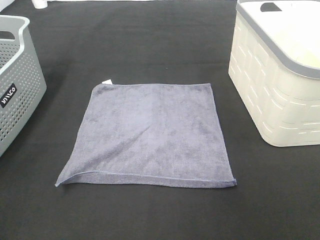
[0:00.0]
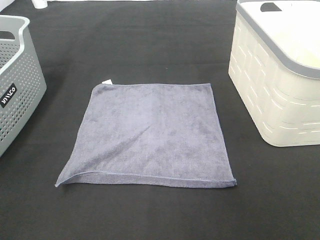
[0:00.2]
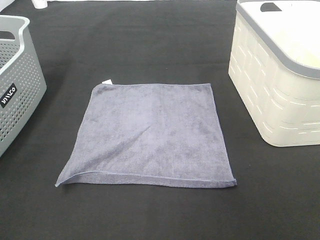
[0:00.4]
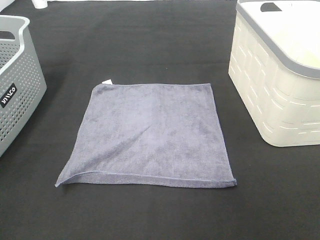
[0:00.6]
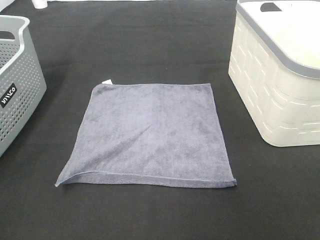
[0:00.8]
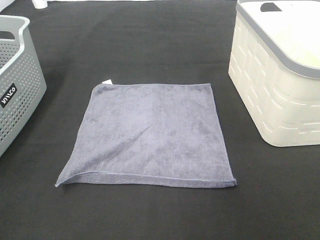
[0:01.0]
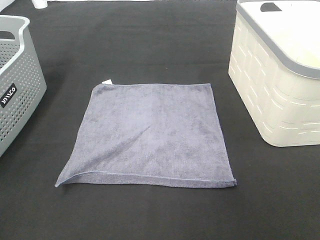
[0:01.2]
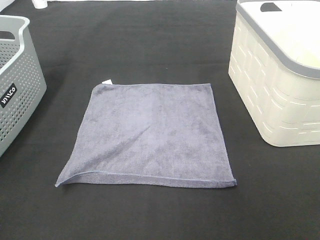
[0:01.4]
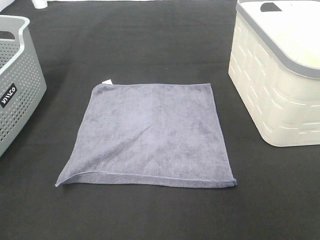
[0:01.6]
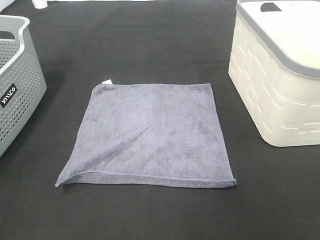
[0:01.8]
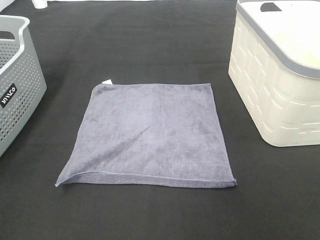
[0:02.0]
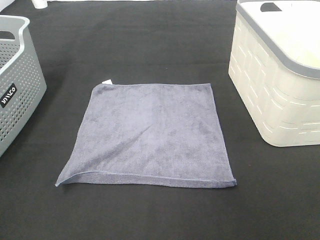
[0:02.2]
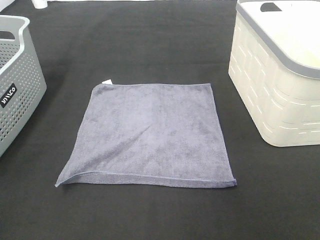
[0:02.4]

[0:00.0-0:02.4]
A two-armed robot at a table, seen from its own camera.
Task of the whole recording: Remove the towel and place it.
0:01.2 to 0:02.4: Neither gripper changes place.

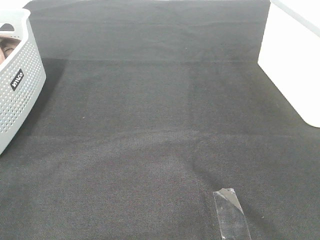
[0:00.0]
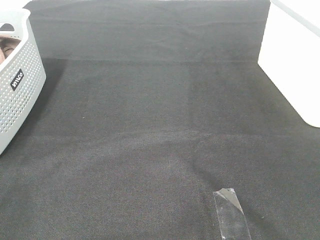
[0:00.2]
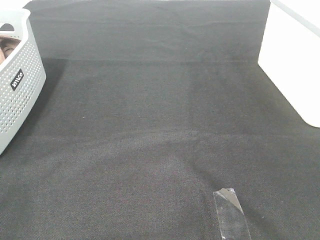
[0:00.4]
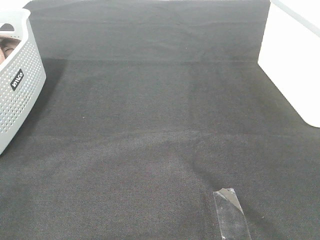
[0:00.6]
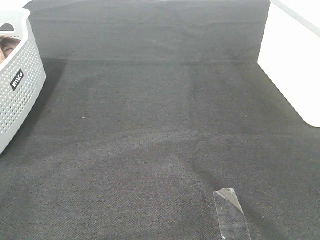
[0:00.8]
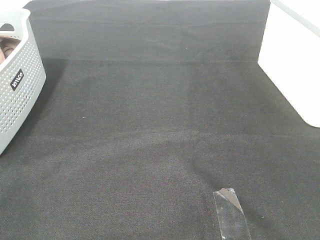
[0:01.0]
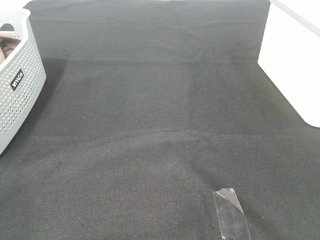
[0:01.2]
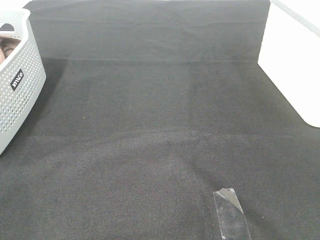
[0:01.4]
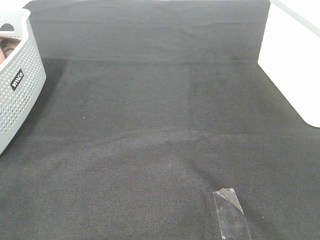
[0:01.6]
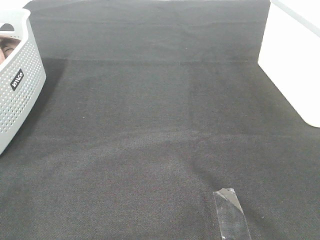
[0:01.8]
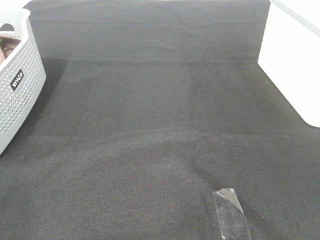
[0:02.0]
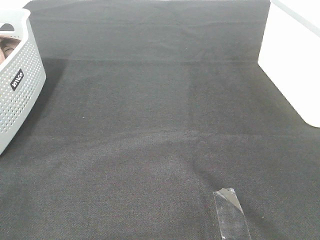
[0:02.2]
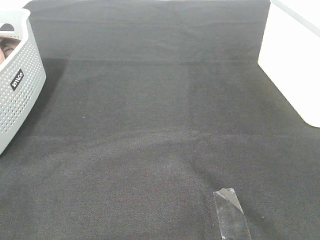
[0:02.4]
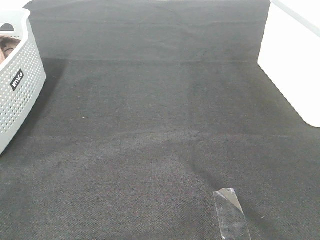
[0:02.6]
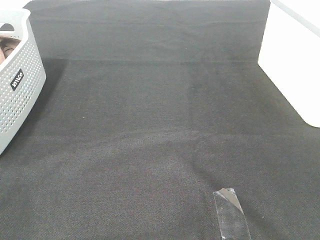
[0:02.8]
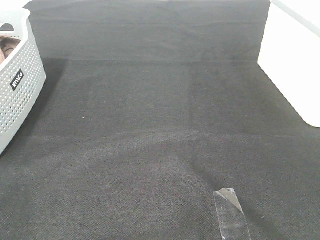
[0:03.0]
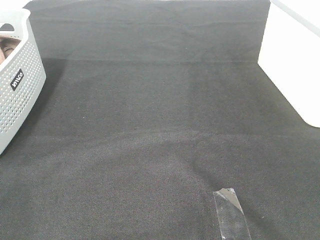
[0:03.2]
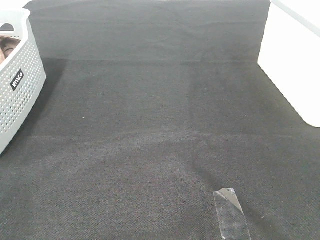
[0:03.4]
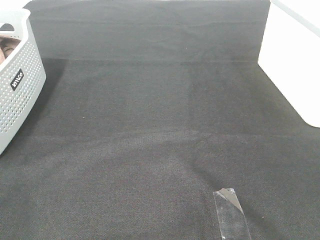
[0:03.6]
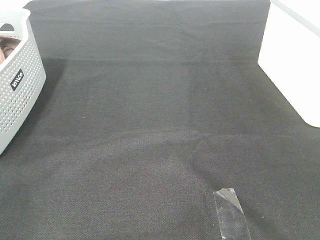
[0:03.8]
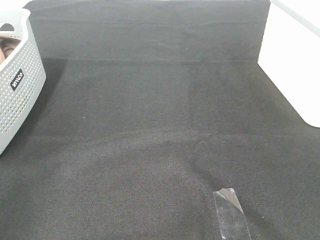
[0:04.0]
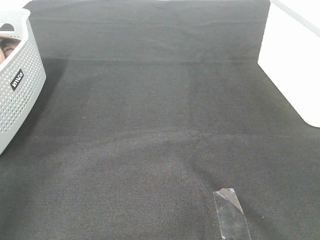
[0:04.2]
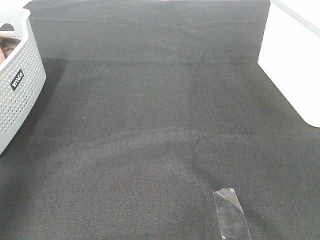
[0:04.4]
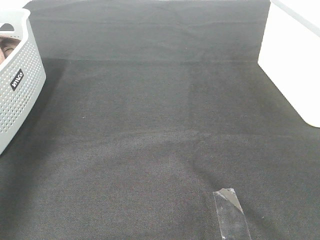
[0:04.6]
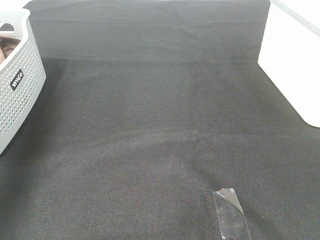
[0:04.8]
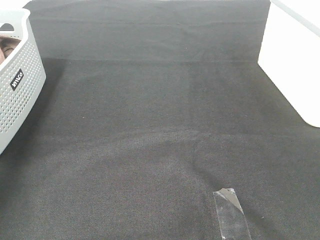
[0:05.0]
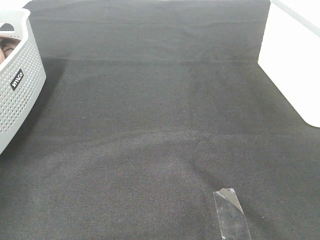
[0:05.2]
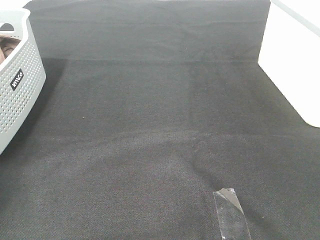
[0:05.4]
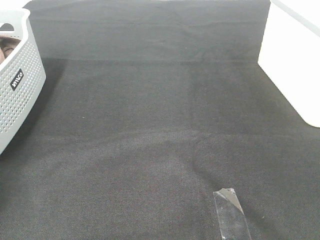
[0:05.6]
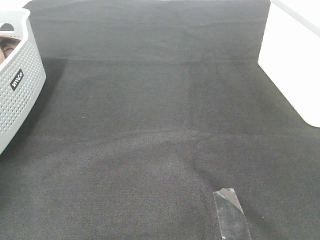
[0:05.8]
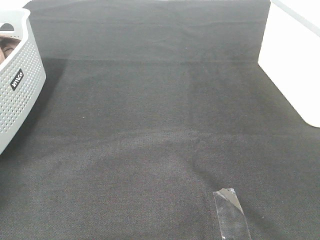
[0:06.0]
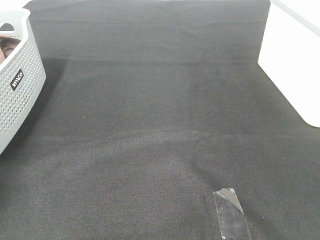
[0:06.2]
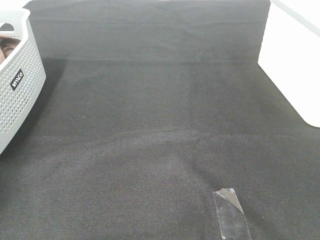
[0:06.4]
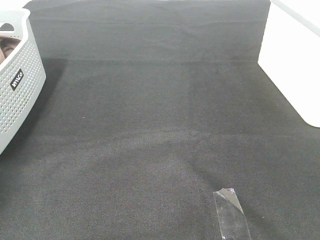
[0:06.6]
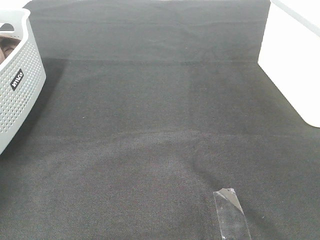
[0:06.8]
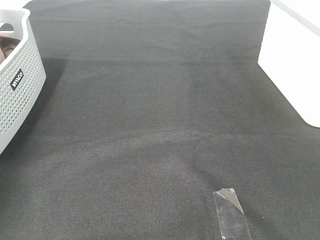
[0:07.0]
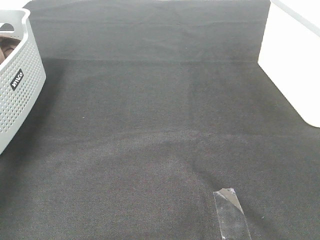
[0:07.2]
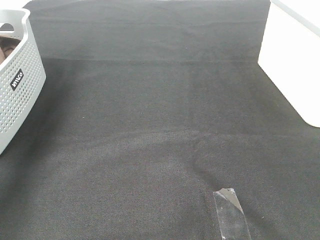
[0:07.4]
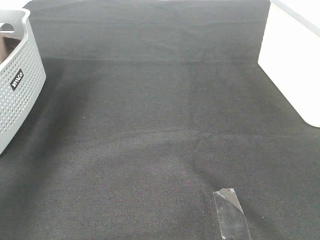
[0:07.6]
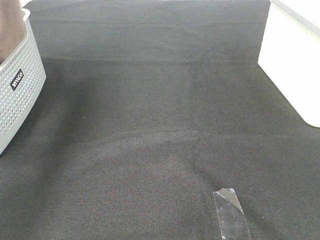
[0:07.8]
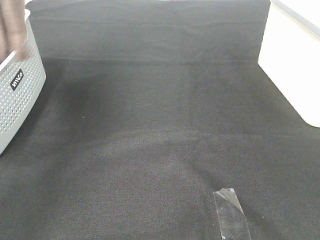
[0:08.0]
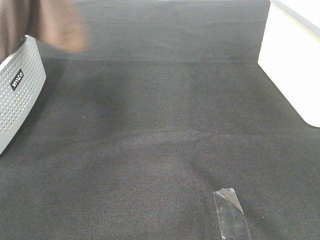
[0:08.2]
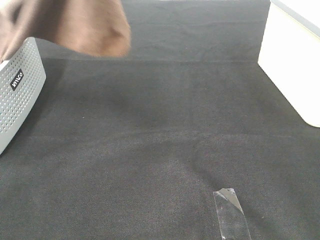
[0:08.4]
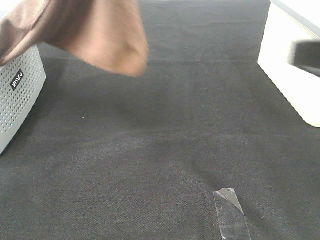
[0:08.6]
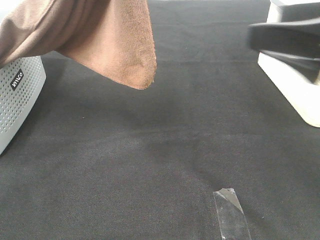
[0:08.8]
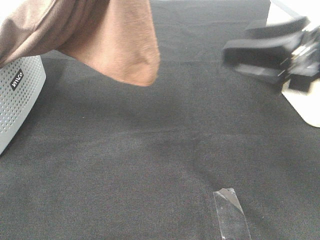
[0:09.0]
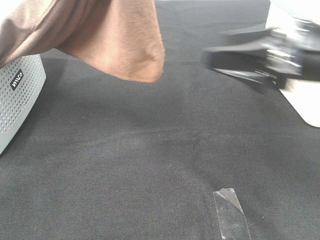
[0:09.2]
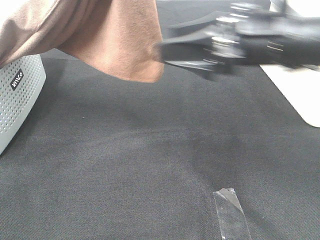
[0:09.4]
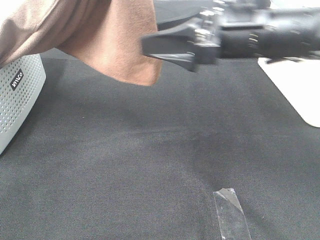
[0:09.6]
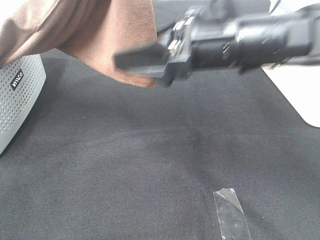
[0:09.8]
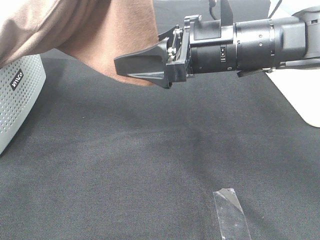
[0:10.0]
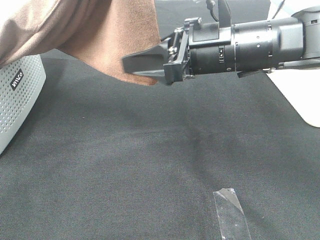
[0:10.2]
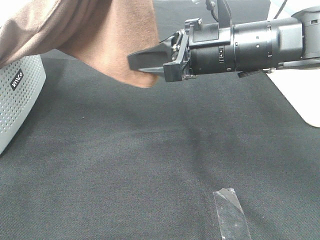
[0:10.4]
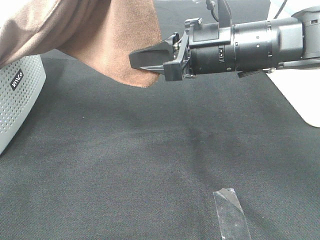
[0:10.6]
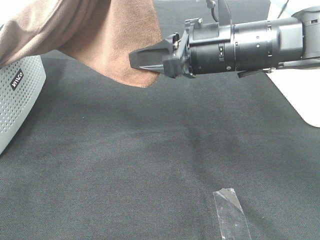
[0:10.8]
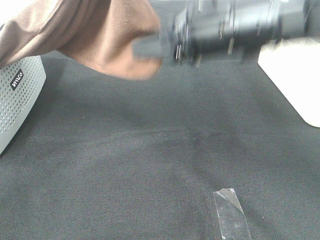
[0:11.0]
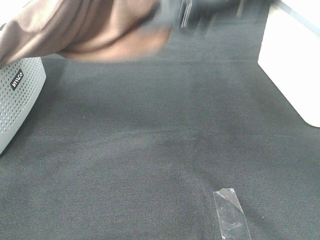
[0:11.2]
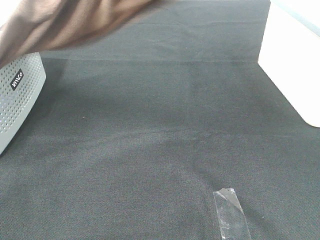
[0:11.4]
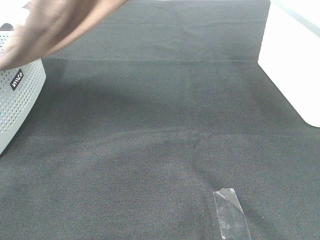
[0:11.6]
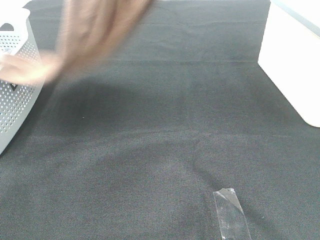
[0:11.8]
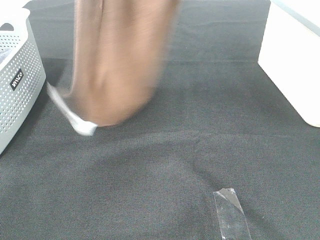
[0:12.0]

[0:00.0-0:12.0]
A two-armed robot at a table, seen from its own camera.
Task of the whole recording: Remove the towel and place it.
Step, 0:07.6 to 0:11.0: Right hand: grab a corner of the brown towel and straighten it.
0:00.0 to 0:03.0: Both grippers stay about where they are.
0:03.0 to 0:04.4: The left gripper travels forward and upward by some 25 cm.
0:04.4 to 0:06.0: The left gripper moves forward, downward and to the left, roughly 35 cm, and closes its fingers.
0:06.0 to 0:07.6: The left gripper heads upward and to the right, covering about 30 cm, and closes.
0:07.6 to 0:09.0: The right gripper is displaced forward by some 20 cm. The left gripper shifts roughly 25 cm to the right and backward.
0:09.0 to 0:10.4: The right gripper shifts roughly 15 cm to the left and forward, and closes up.
0:10.4 to 0:12.0: The left gripper heads forward, covering roughly 10 cm. The right gripper is displaced upward by some 30 cm.

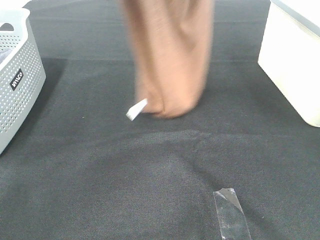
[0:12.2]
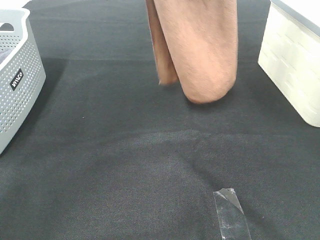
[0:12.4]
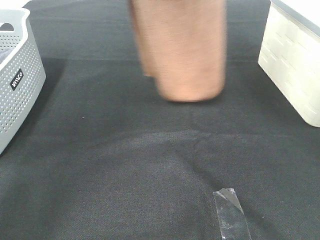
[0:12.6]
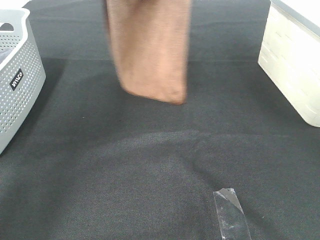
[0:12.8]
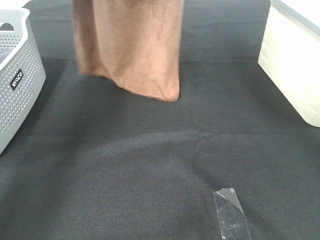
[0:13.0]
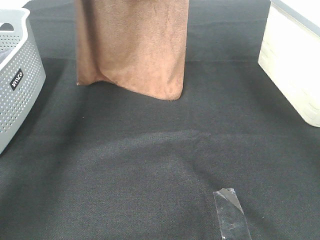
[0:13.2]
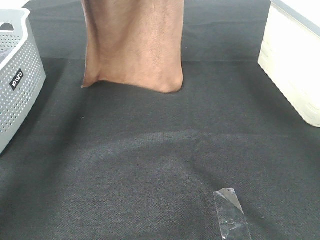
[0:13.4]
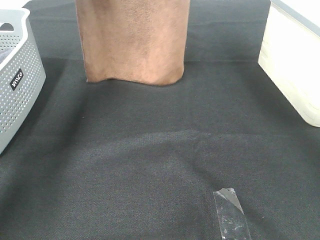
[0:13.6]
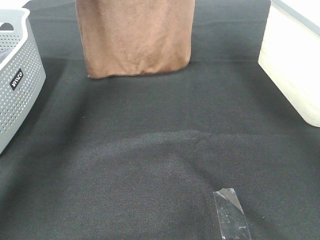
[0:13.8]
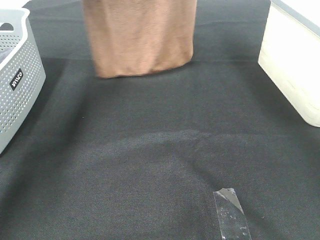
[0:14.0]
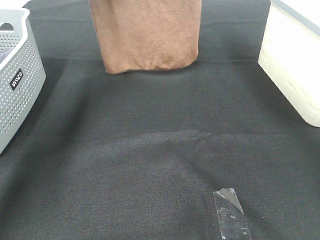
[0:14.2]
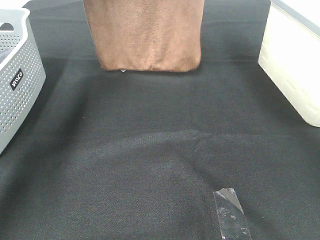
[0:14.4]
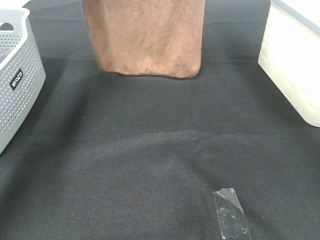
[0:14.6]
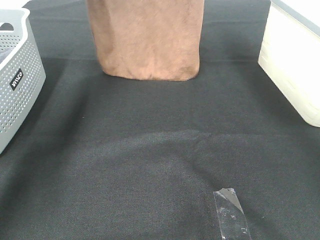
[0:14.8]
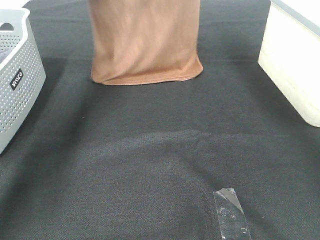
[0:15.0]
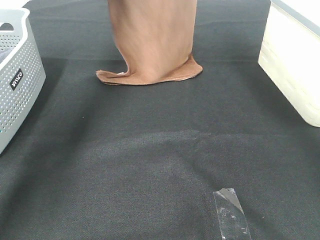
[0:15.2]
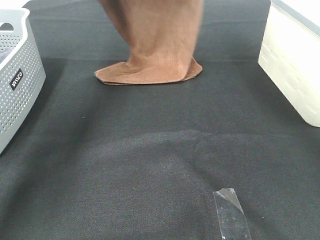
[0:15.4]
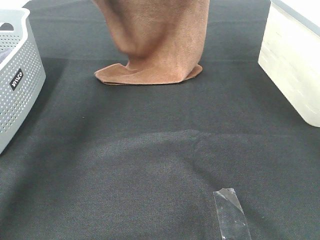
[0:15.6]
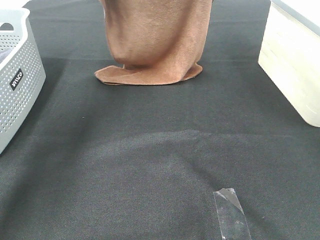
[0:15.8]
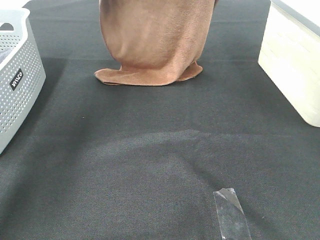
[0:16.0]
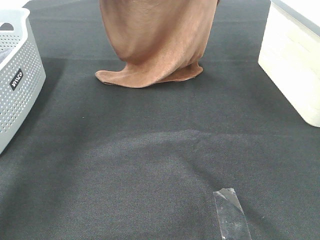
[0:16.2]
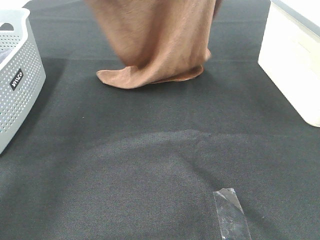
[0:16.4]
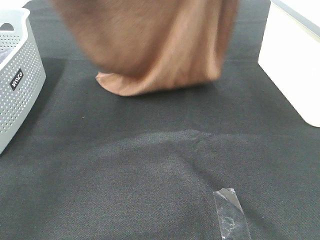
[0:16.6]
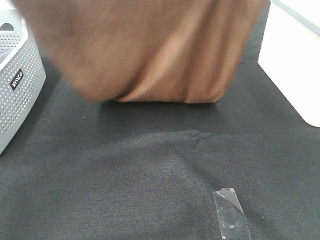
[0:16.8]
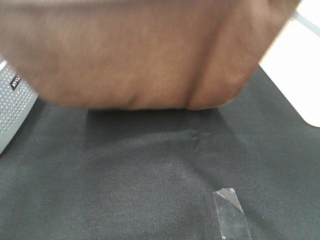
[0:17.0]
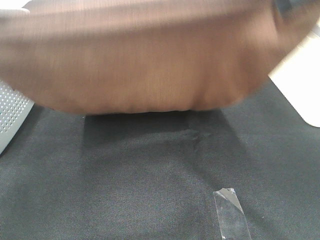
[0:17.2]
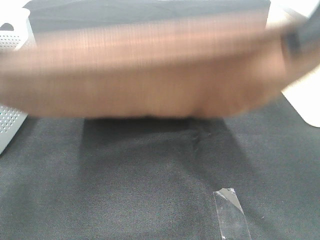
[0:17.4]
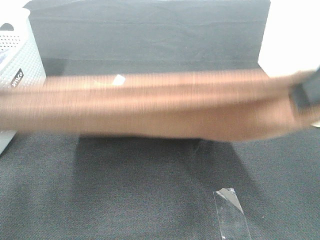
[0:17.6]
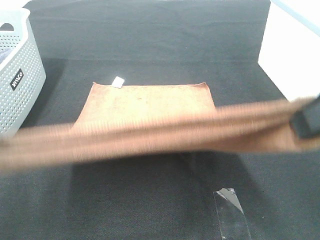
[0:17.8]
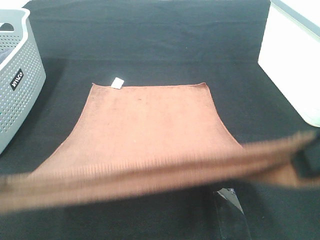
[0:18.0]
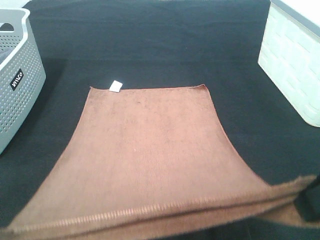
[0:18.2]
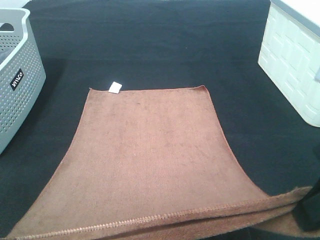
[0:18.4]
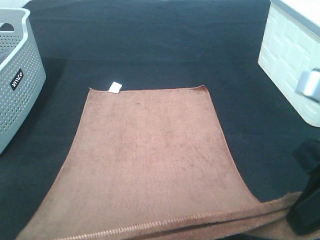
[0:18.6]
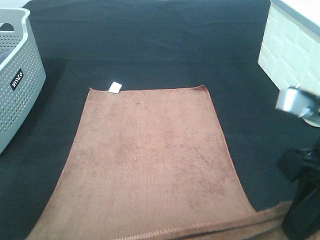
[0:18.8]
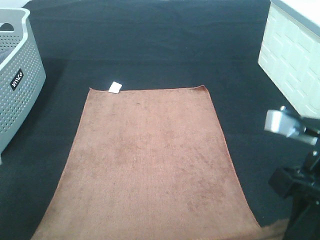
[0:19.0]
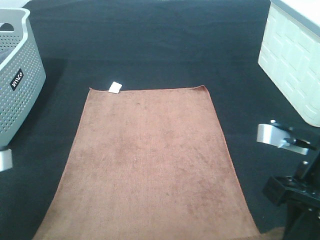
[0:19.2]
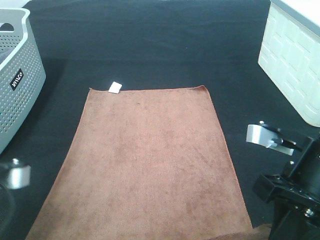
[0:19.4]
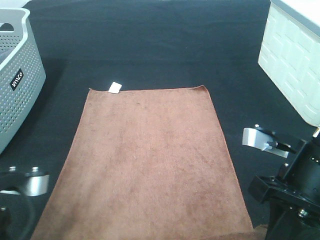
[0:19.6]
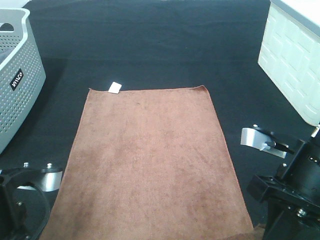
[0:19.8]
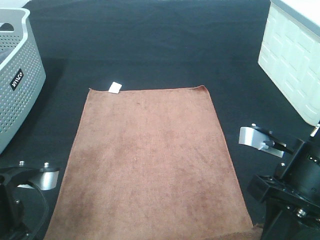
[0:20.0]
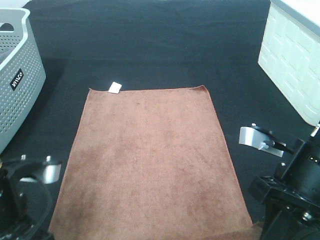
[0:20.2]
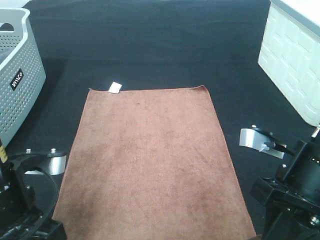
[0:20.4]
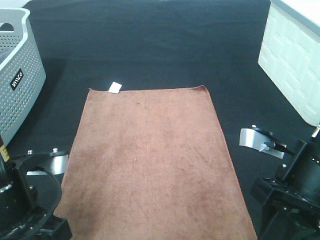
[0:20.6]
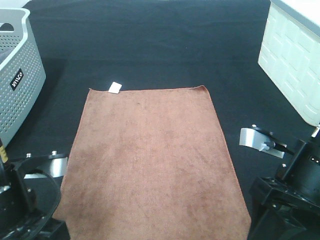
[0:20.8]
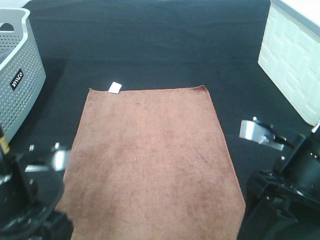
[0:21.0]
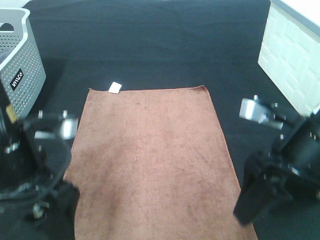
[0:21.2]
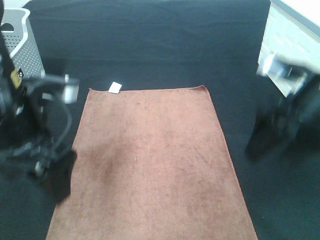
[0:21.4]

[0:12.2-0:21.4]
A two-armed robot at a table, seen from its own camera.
Task of the whole recording: Remove the towel and place it.
Step, 0:12.2 to 0:16.6: Left hand: spread the brown towel flat on the table.
Step, 0:12.2 to 0:16.6: Right hand: spread the brown towel flat on the table.
0:12.2 to 0:13.8: The left gripper goes approximately 15 cm forward, to the left and downward; the right gripper travels forward and downward by approximately 15 cm.
0:13.8 to 0:15.2: Both grippers travel together downward, roughly 10 cm.
0:15.2 to 0:16.8: The grippers both shift backward by some 25 cm.
0:16.8 to 0:18.4: Both grippers move downward and backward, some 25 cm.
0:18.4 to 0:19.8: The left gripper is displaced downward and to the right by some 10 cm. The right gripper heads downward, covering some 10 cm.
0:19.8 to 0:21.4: Both grippers move forward and upward, about 10 cm. The left gripper opens its fingers, while the right gripper opens.
